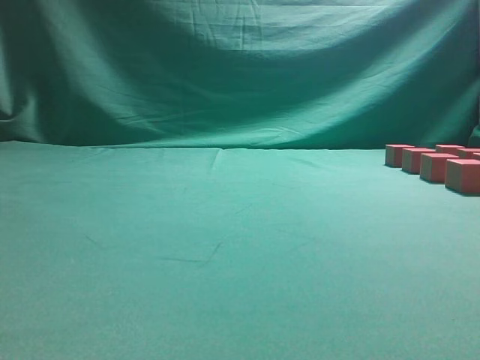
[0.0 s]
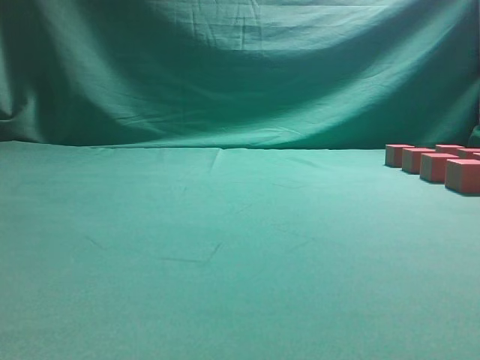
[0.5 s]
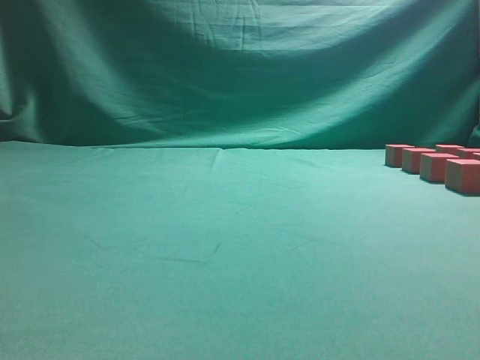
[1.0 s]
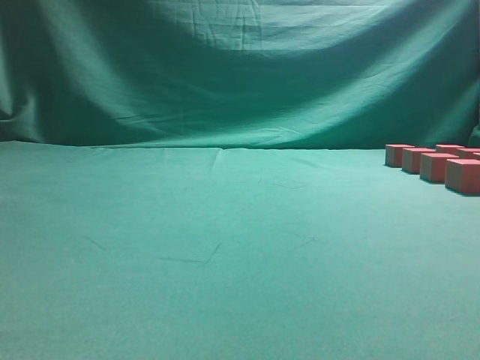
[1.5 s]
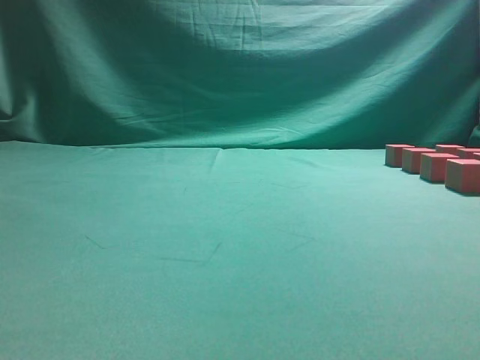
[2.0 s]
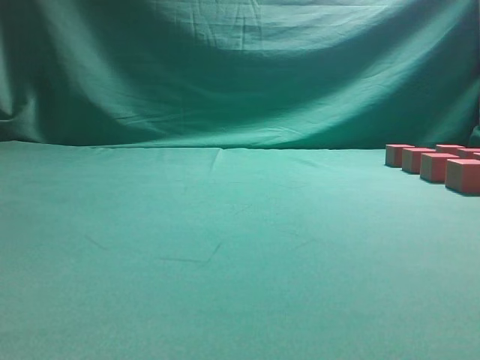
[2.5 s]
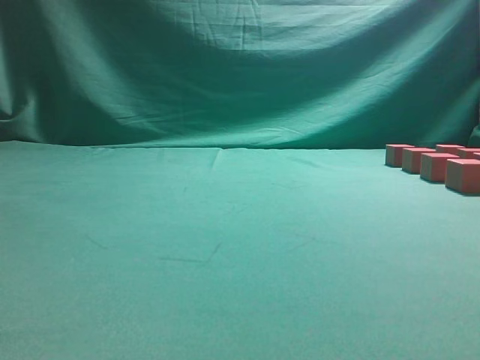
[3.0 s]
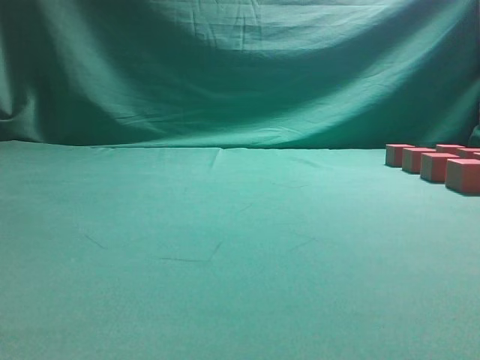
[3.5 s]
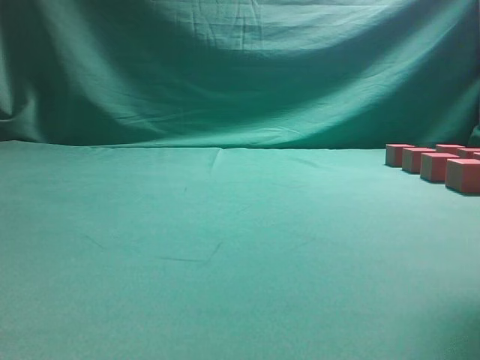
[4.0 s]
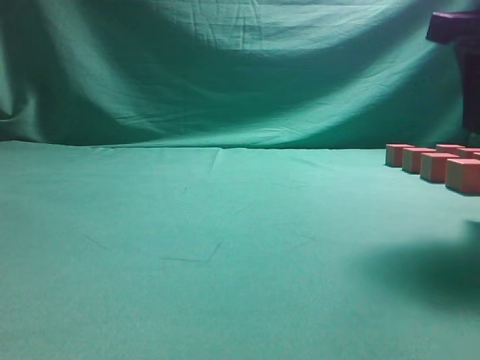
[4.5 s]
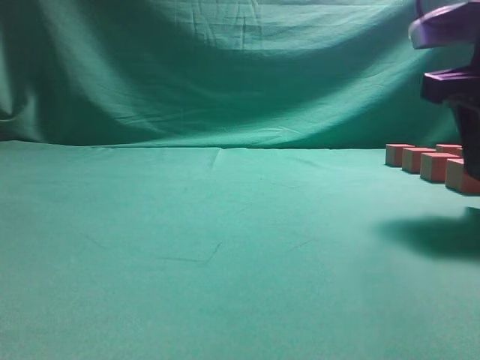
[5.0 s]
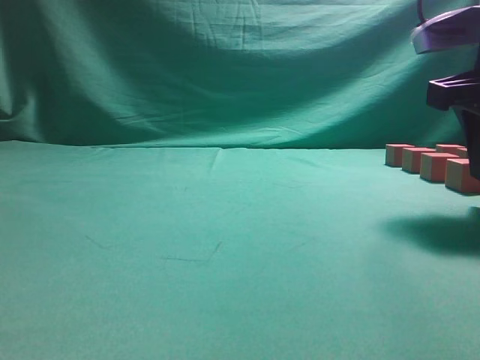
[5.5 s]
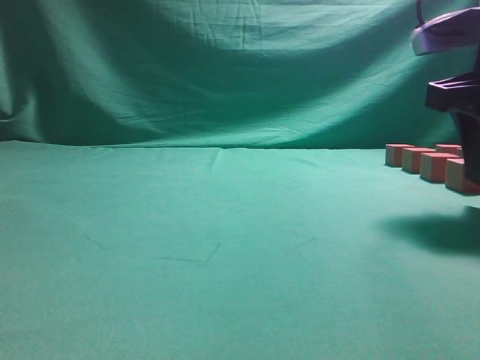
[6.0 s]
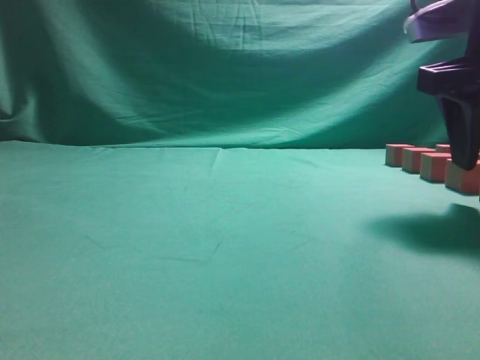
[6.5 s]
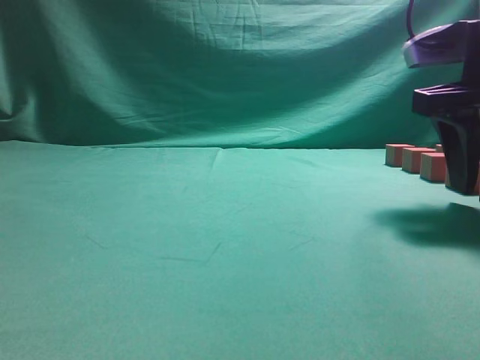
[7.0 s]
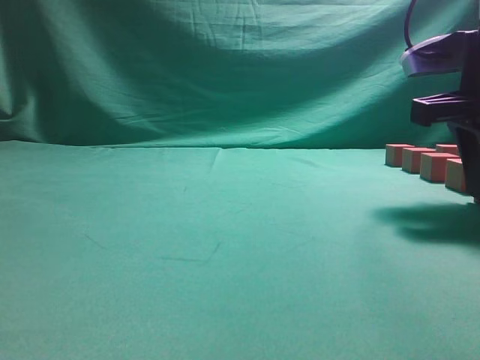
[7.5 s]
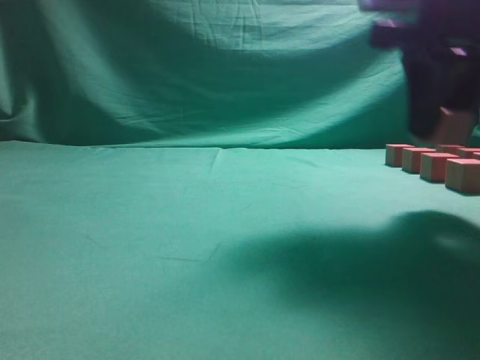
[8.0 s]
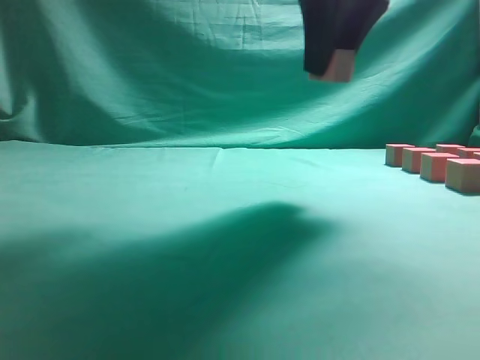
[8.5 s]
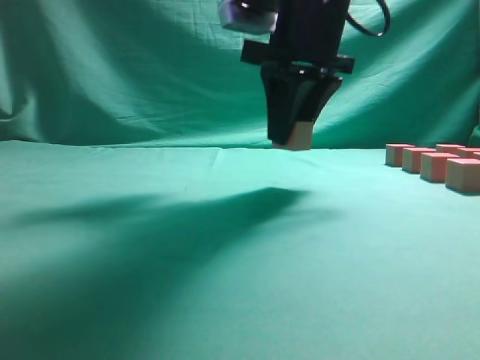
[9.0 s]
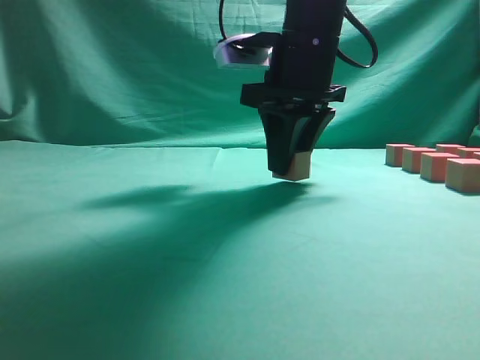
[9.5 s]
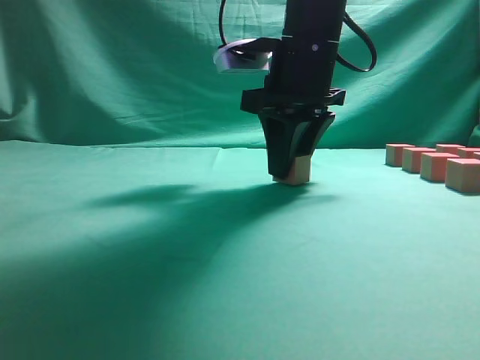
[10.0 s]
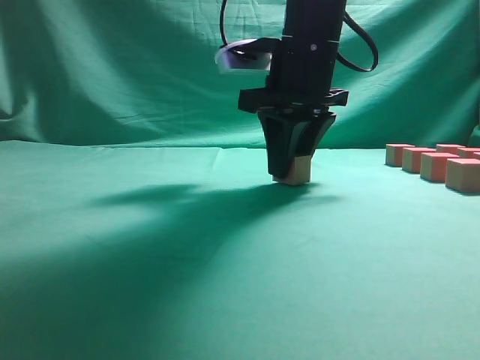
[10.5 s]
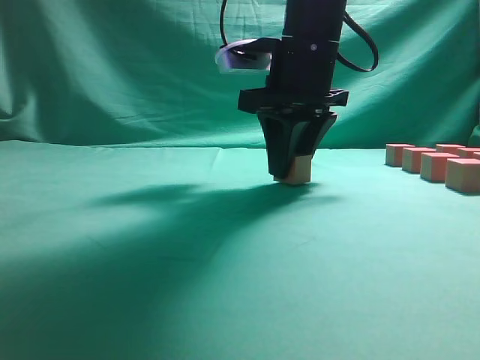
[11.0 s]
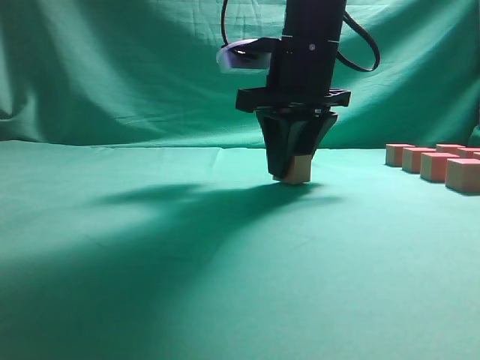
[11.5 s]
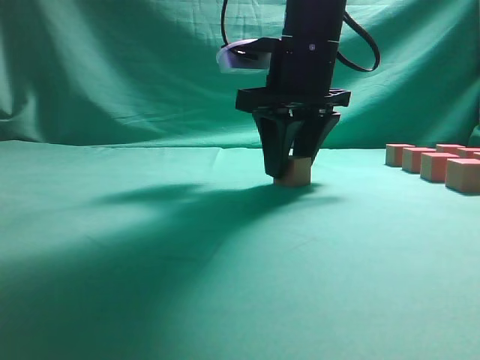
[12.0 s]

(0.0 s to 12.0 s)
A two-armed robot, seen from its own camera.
Task of the whole recording: pick up the multiple cubes in two columns one by one and place them in another position on the table.
Step, 0.0 s - 8.0 s: Pick up the block on the table.
2.0 s - 4.0 s: The right gripper moves forward, about 20 cm.
4.0 s - 6.0 s: The right gripper is displaced downward and forward by approximately 10 cm, and opens.
6.0 s - 8.0 s: The right gripper moves to the left, some 5 cm.
8.0 s - 10.0 s: The right gripper goes approximately 15 cm to the left and forward.
10.0 s - 12.0 s: The grippers make only small movements.

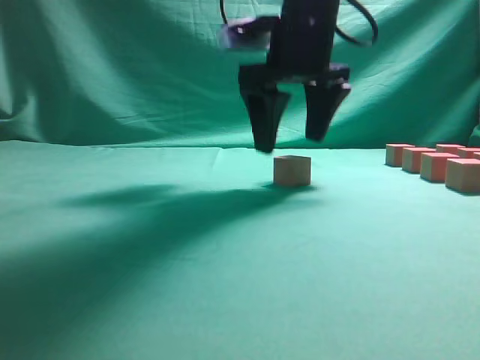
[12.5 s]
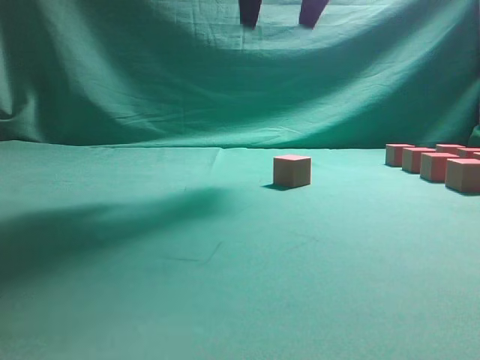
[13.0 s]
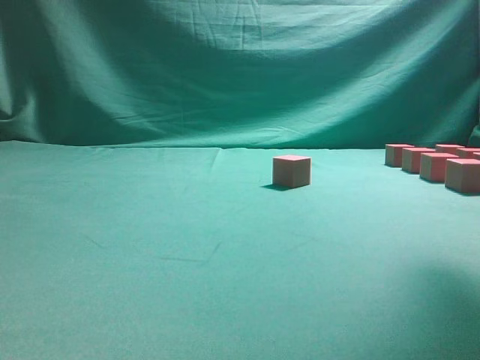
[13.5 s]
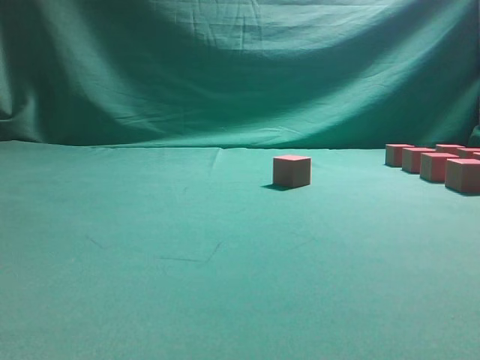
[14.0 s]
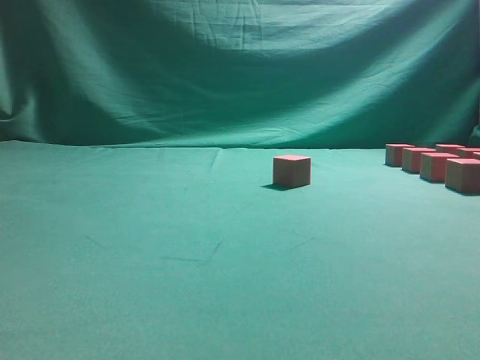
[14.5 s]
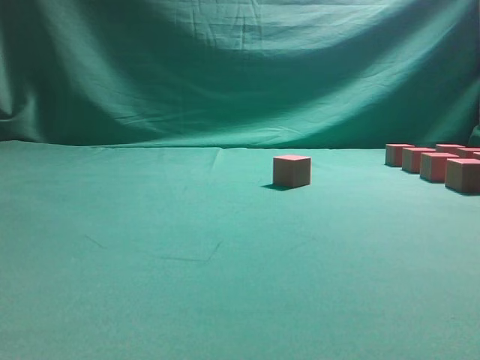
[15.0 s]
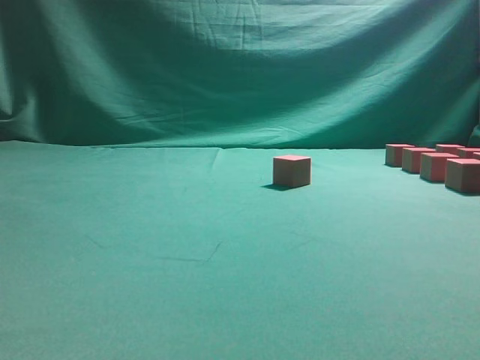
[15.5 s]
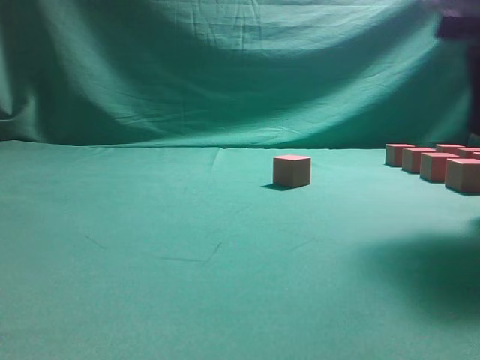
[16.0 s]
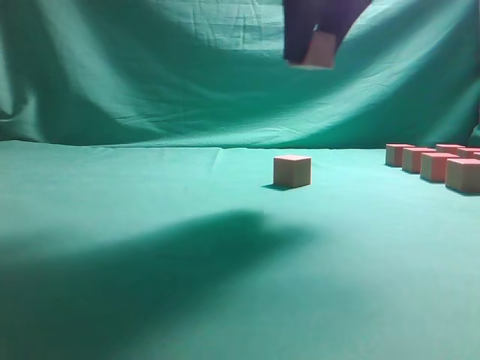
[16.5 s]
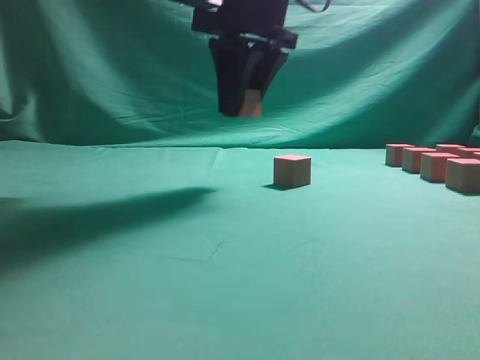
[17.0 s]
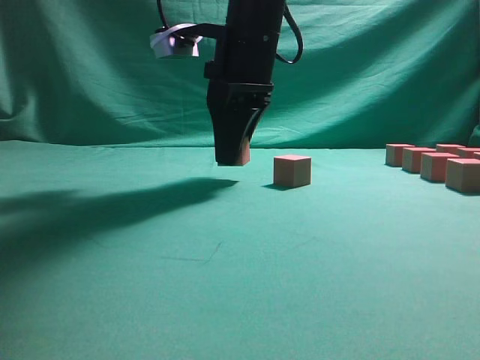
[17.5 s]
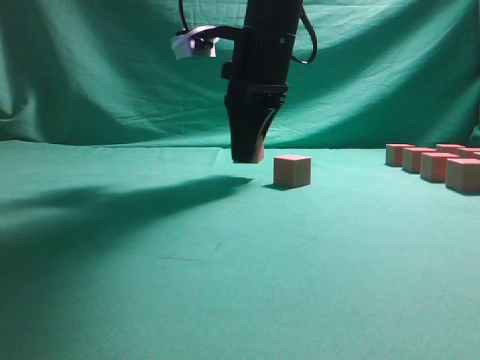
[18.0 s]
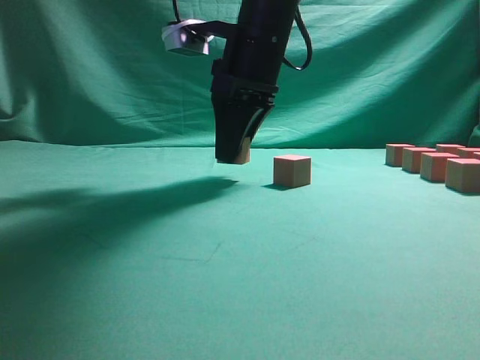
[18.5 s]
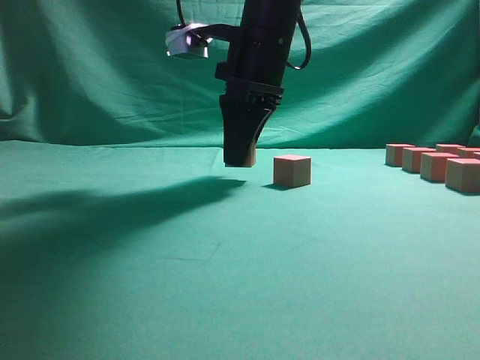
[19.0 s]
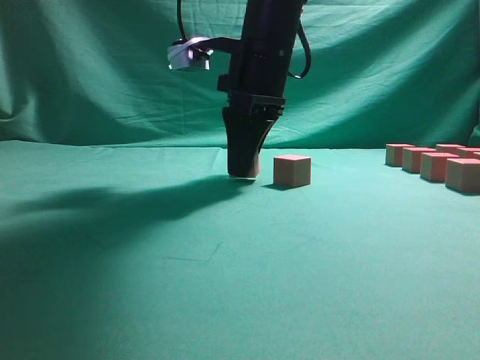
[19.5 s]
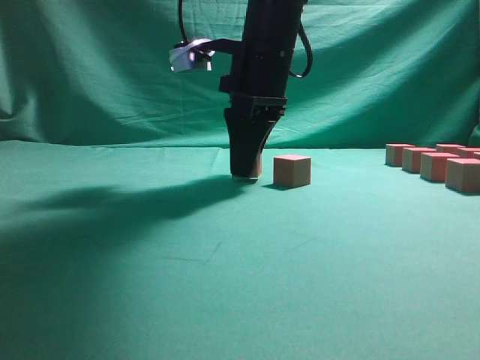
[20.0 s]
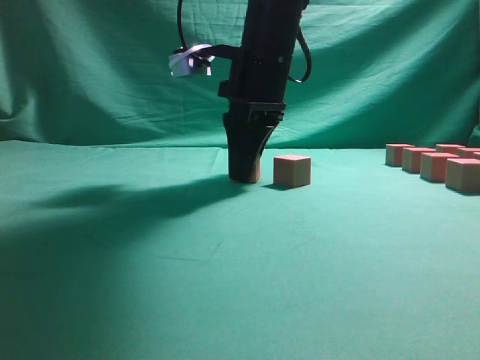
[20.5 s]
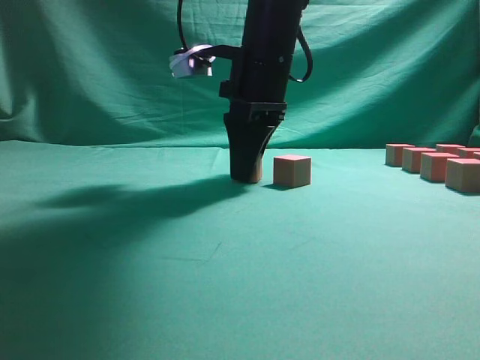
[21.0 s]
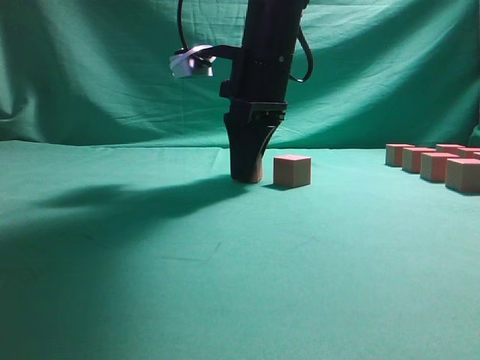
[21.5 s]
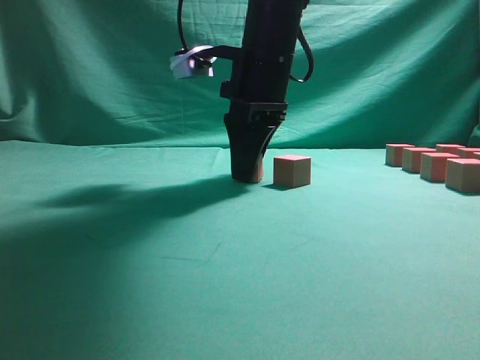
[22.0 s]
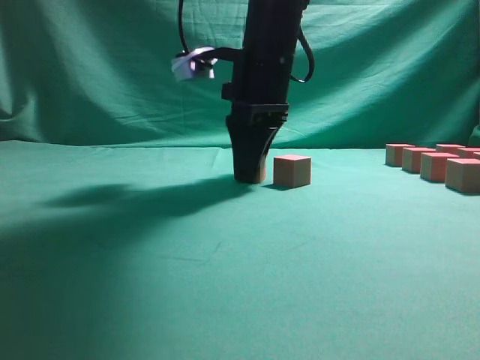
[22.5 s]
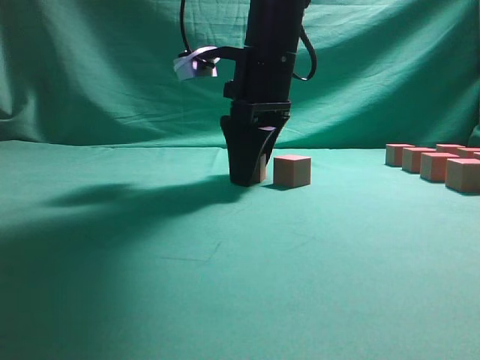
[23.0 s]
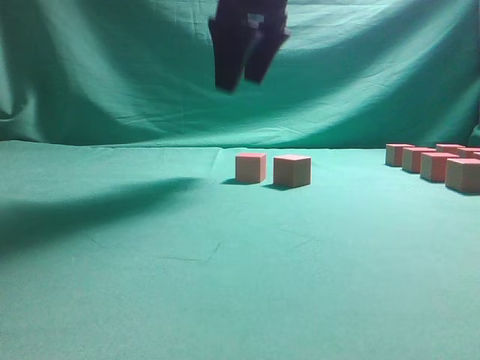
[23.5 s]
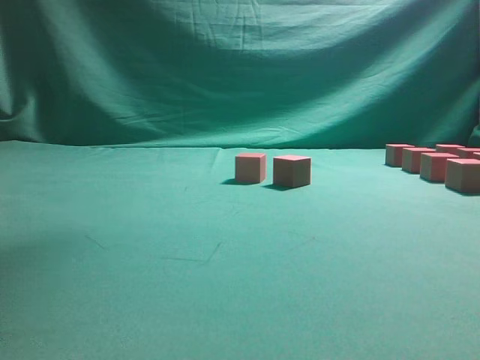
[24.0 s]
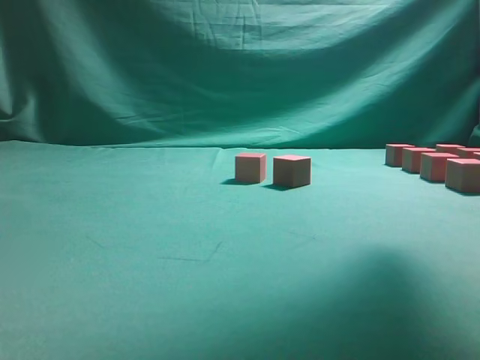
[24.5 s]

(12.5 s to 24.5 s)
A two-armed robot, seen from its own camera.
Task of the whole recording: pick up the multiple cubes in two columns one by one and place them in another position on the table.
Step, 13.0 s - 16.0 s: Pick up the block on the table.
Step, 16.5 s - 23.5 s: Place the block at the correct position to assemble the letter S.
12.5 s - 14.5 s: The right gripper travels to the right and backward by about 25 cm.
14.5 s - 16.5 s: The right gripper travels to the left and upward by about 20 cm, and closes.
16.5 s - 18.5 s: The right gripper goes approximately 15 cm downward, forward and to the left.
18.5 s - 20.5 s: The grippers make only small movements.
20.5 s - 22.5 s: The two grippers keep their place.
22.5 s - 24.5 s: The right gripper travels to the right, upward and backward by about 25 cm, and opens up.

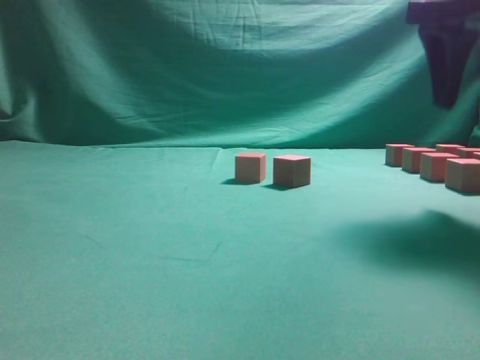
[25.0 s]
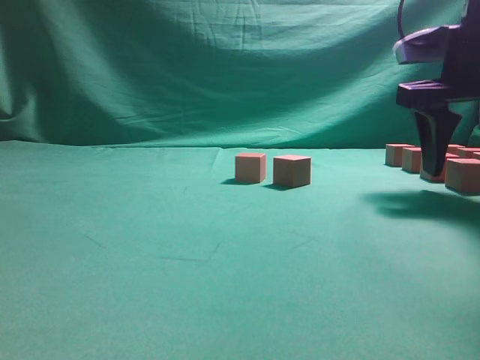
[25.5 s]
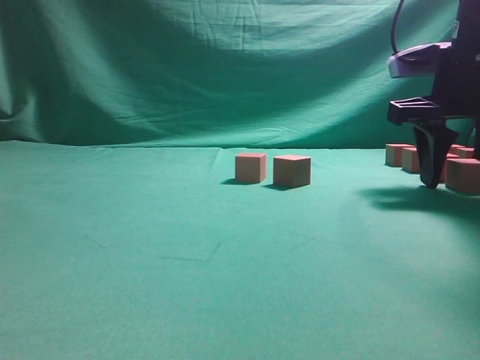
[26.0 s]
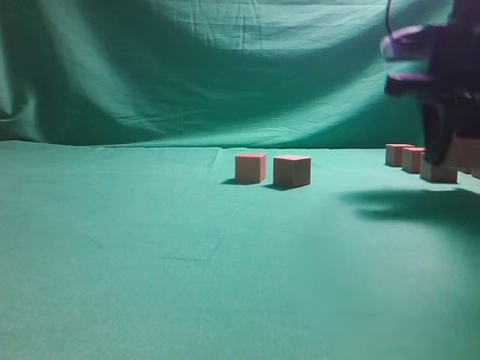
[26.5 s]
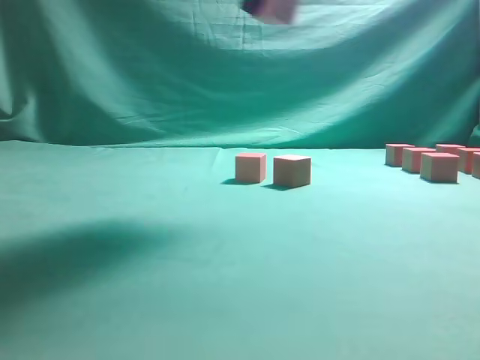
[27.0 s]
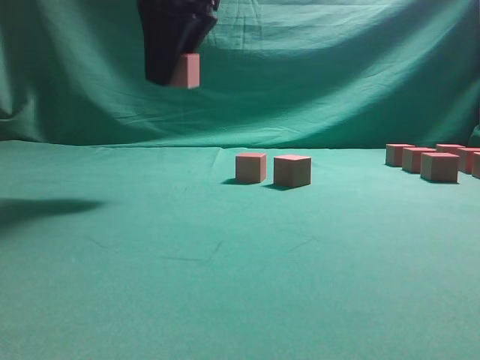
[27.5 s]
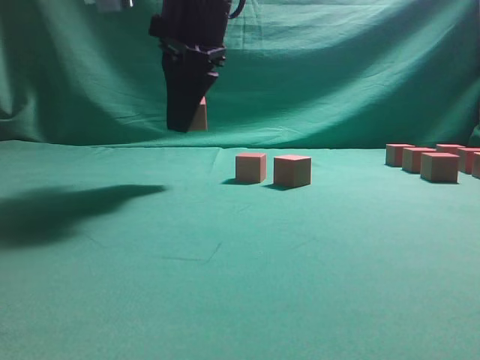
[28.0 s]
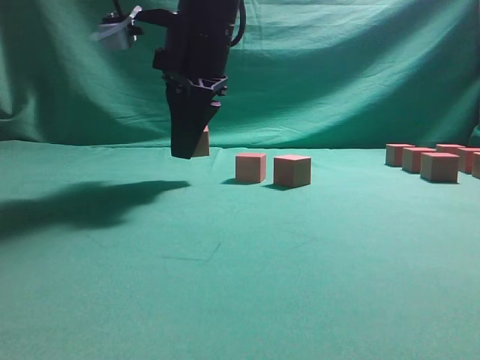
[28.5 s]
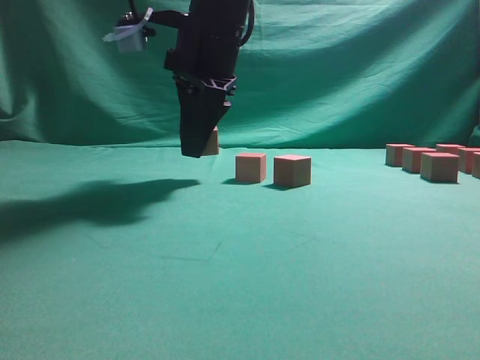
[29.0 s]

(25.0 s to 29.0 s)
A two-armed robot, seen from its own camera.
Task of the whole recording: pick up the multiple cubes in two columns one by one and place them in another position on the table.
Step, 25.0 s - 26.5 s: Pick up the block on the table.
25.0 s - 27.0 s: The right gripper heads to the left and upward, covering roughly 15 cm, and closes its fingers.
27.0 s - 29.0 s: The right gripper is displaced downward, to the left and forward by approximately 15 cm.
